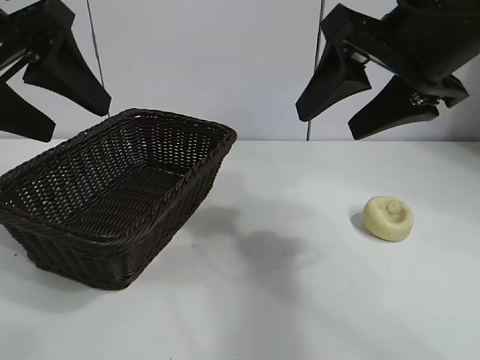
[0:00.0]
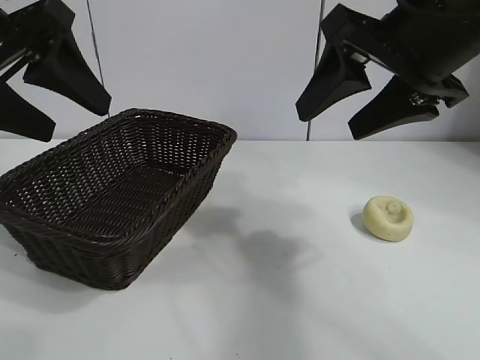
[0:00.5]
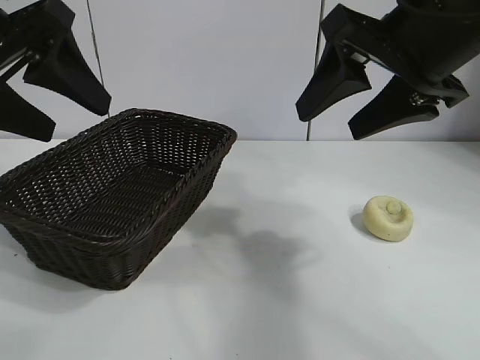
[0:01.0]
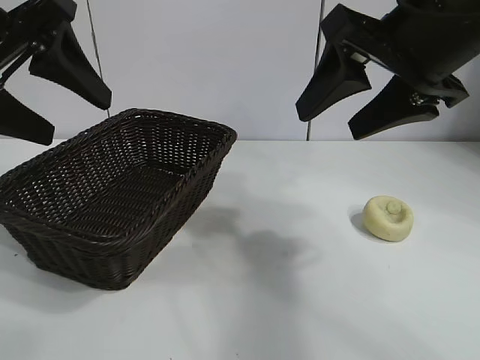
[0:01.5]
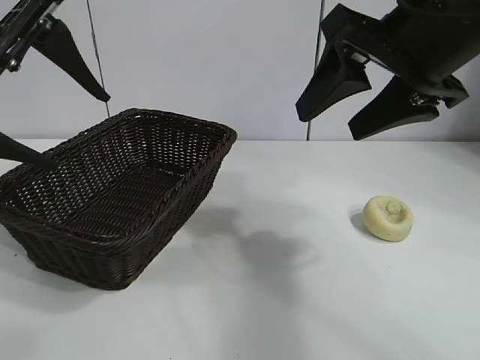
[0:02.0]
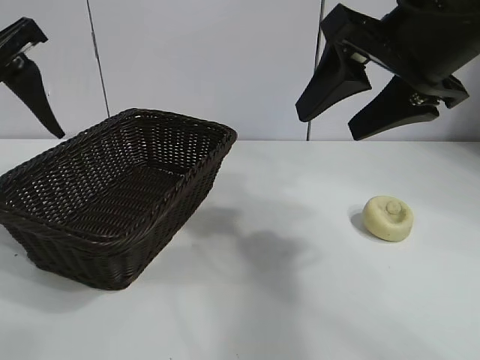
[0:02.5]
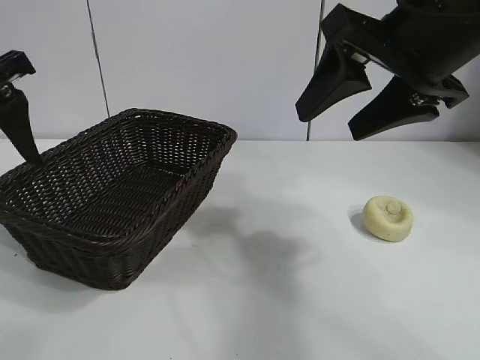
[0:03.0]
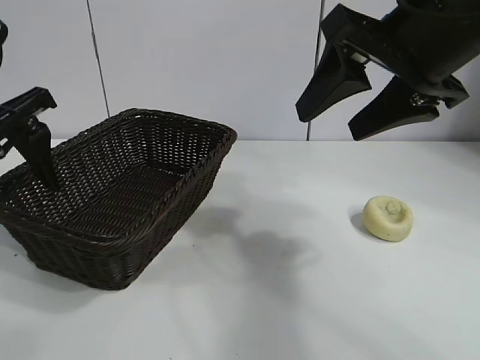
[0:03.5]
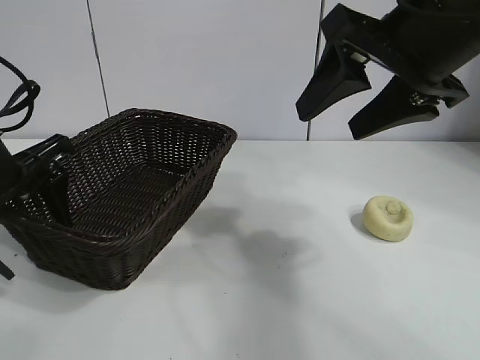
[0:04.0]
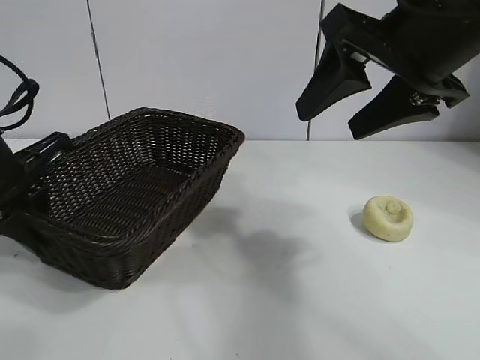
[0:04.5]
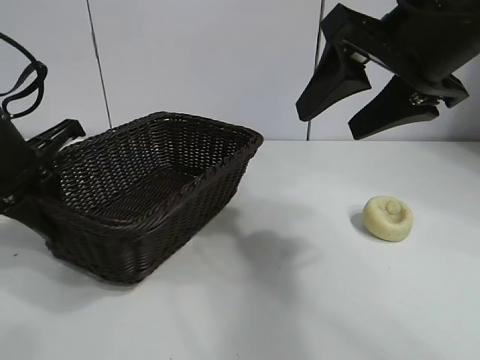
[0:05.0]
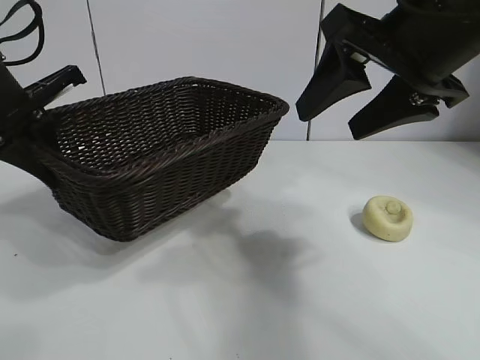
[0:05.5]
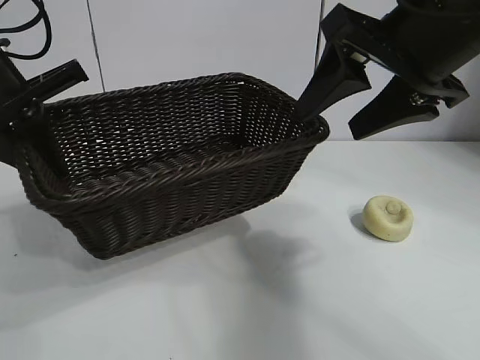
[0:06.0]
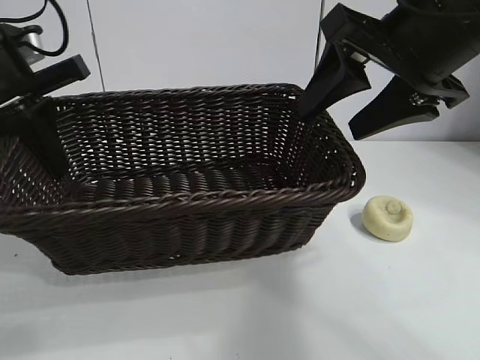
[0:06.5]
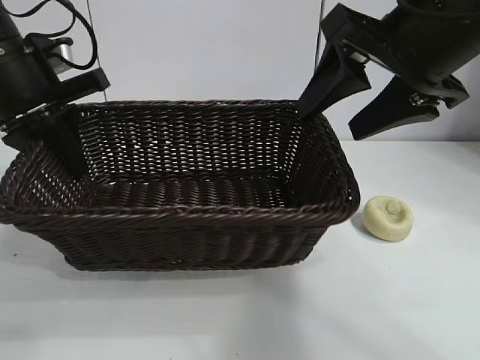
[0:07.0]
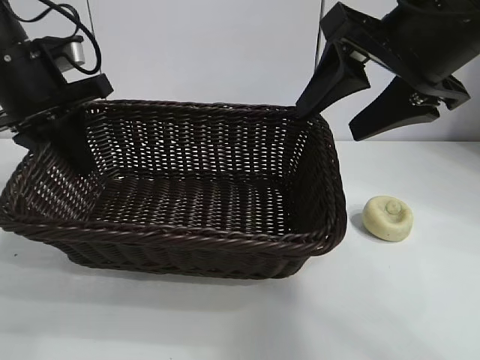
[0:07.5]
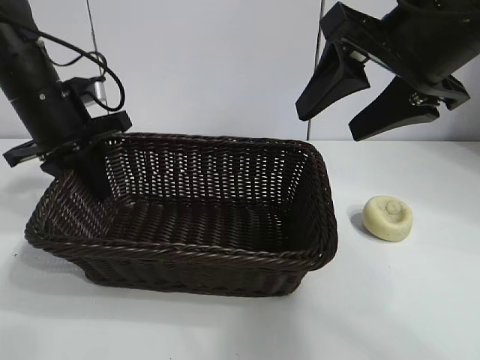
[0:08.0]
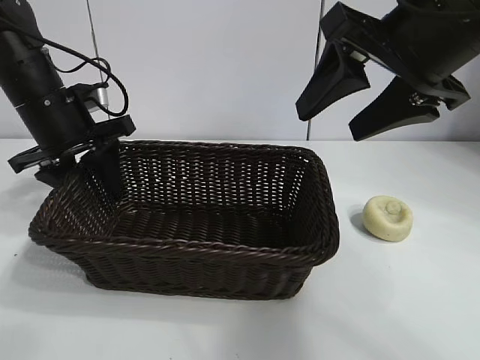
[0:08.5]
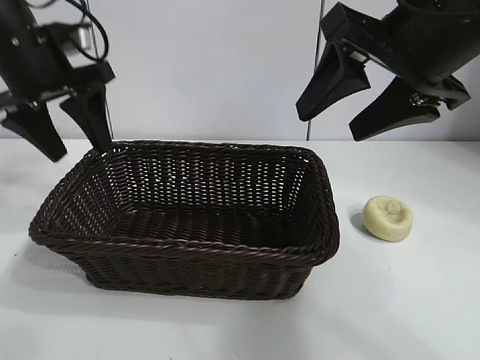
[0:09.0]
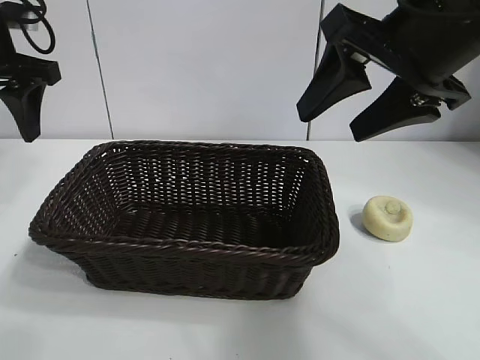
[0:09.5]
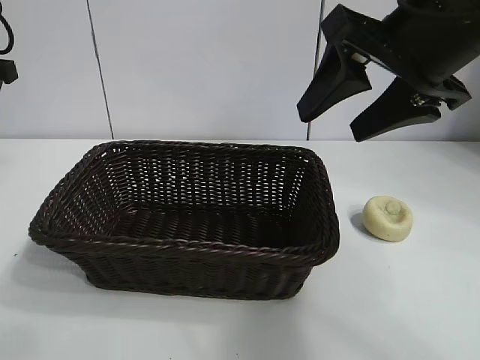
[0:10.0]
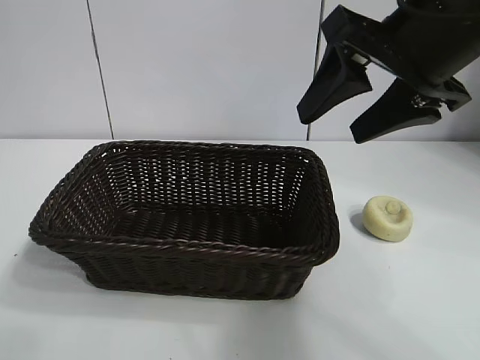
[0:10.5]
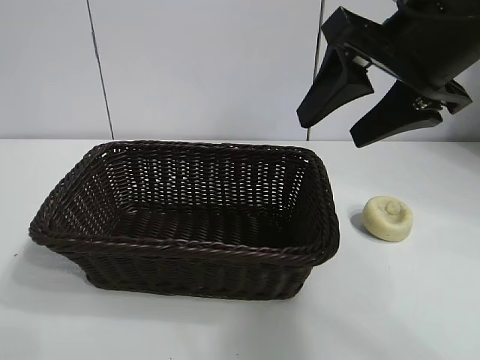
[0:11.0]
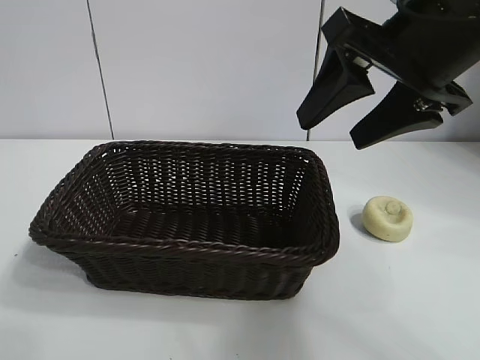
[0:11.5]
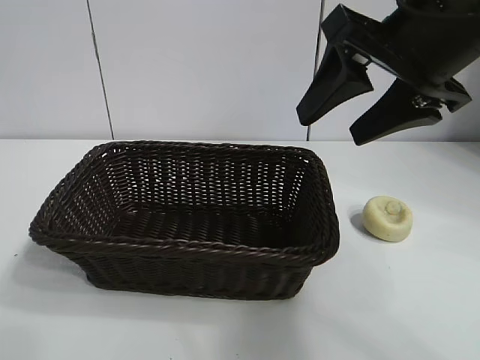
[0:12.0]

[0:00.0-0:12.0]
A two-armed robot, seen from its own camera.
Task of the whole recording: pick up the egg yolk pastry and put it into the basket.
Step, 0:01.5 to 0:04.0: Grasp the basket with left gripper.
Step, 0:05.0 to 0:09.0: Place the basket in the center of view with left gripper.

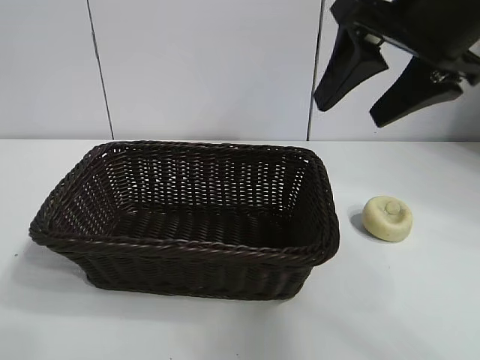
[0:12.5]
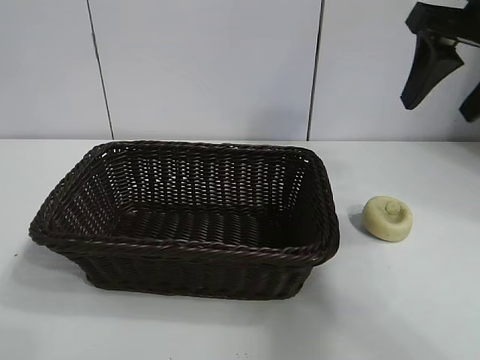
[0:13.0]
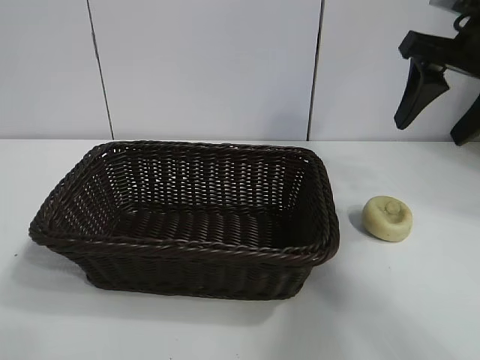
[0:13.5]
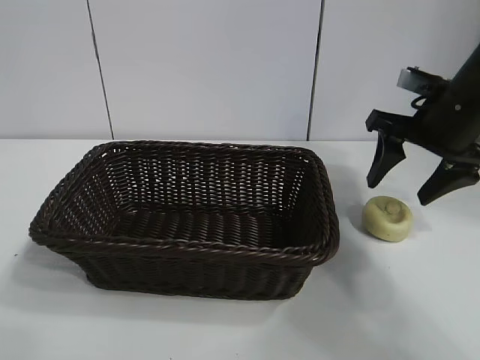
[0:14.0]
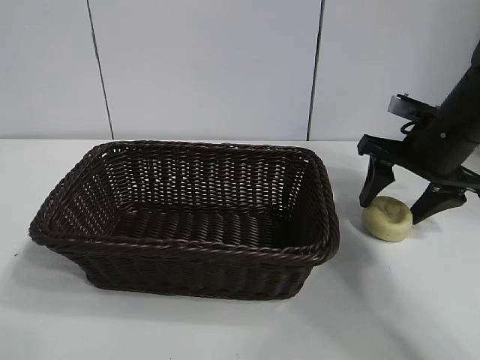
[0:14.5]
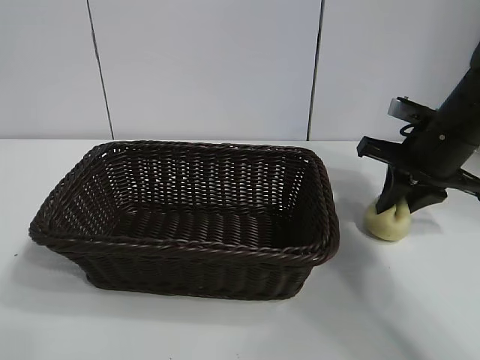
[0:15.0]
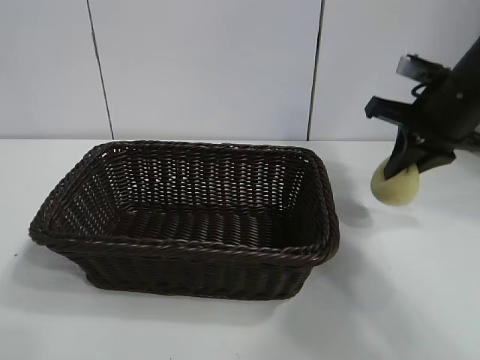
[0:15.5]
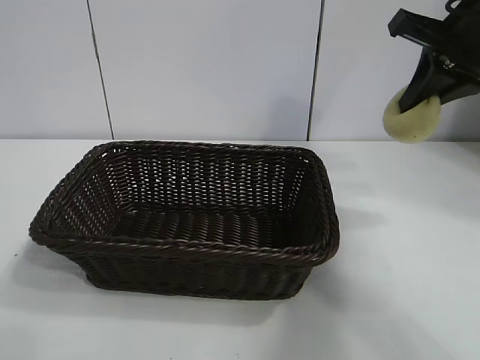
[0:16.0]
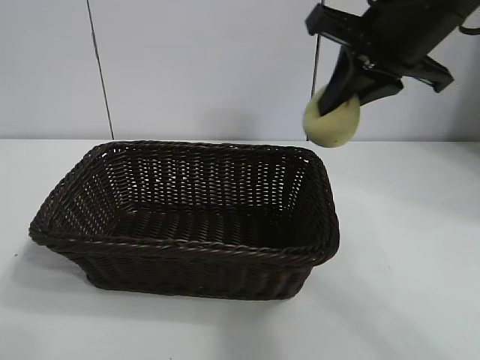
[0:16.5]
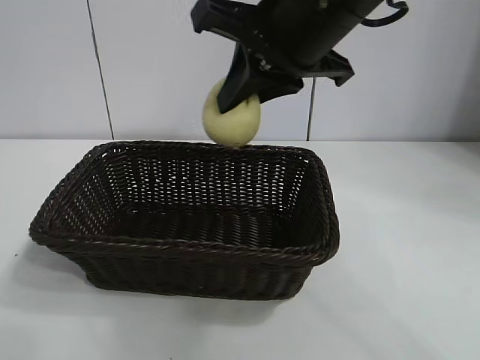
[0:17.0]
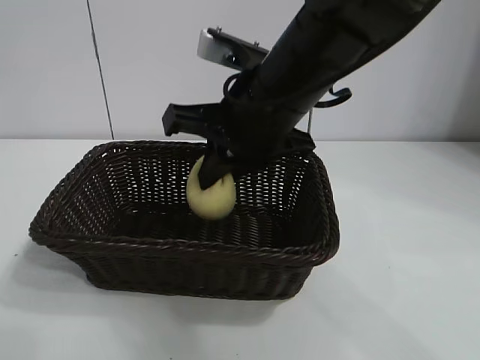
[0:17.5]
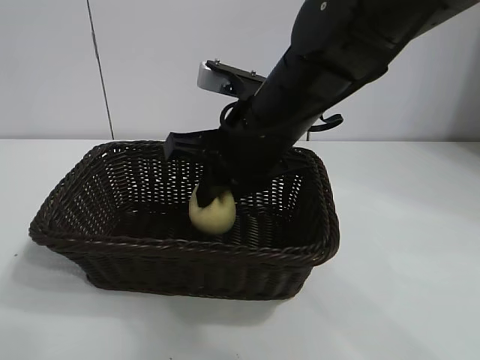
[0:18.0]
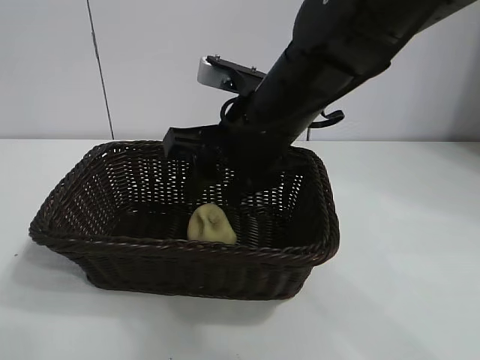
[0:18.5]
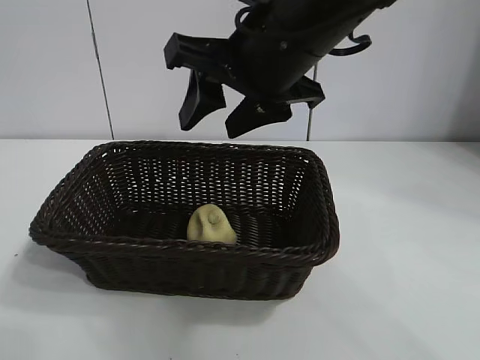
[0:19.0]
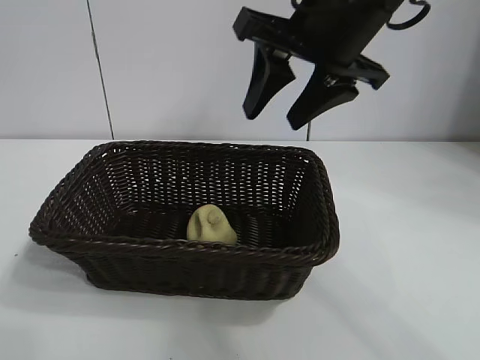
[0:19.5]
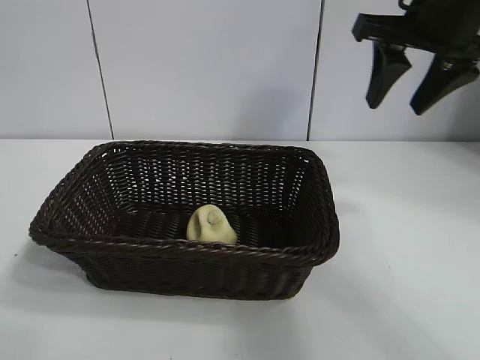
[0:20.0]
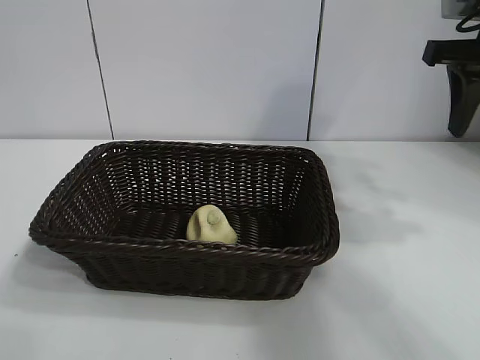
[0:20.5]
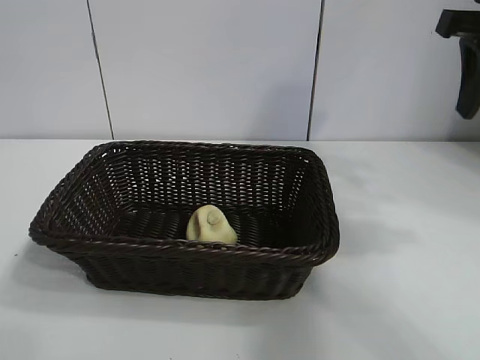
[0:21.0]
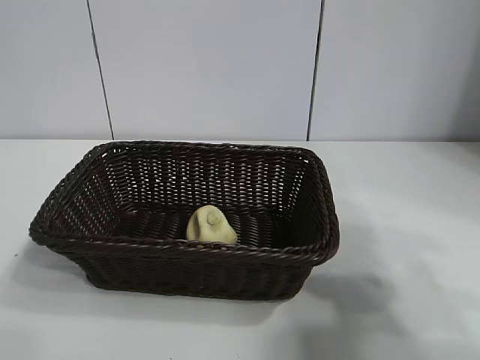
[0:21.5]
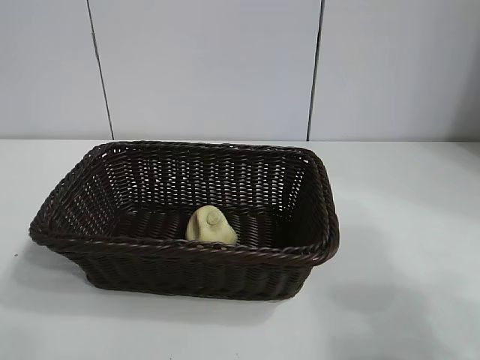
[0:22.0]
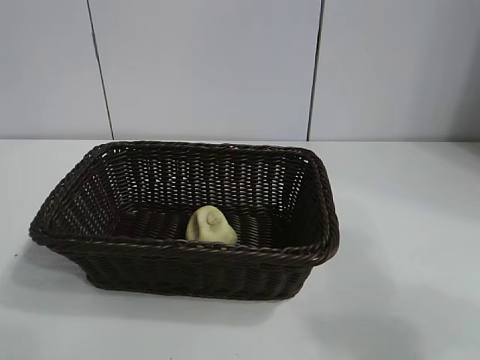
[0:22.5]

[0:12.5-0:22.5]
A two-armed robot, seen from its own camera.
Task of the whole recording: pick up the egg yolk pastry and put it into the basket.
Step, 0:12.5 to 0:14.5: Grasp egg yolk pastry with right gripper.
Step, 0:15.5 to 0:18.0: Place the egg yolk pastry in the basket with right gripper.

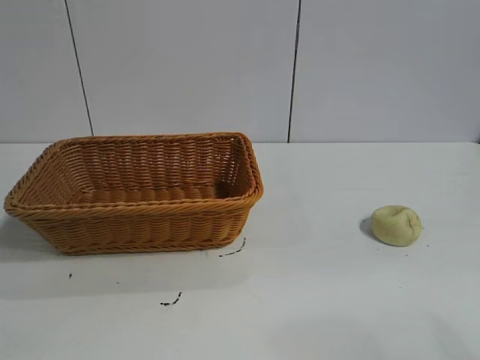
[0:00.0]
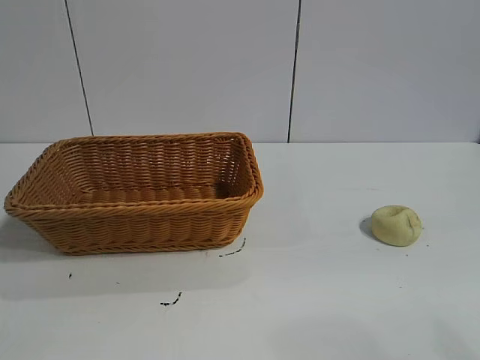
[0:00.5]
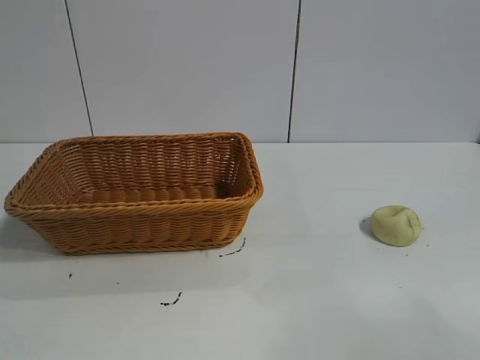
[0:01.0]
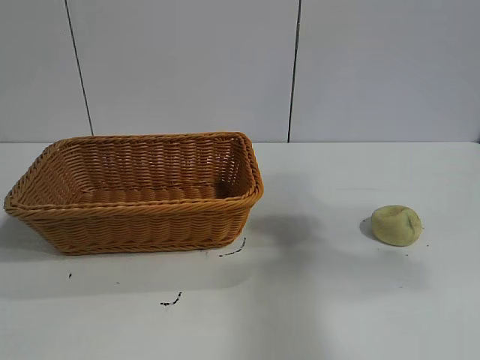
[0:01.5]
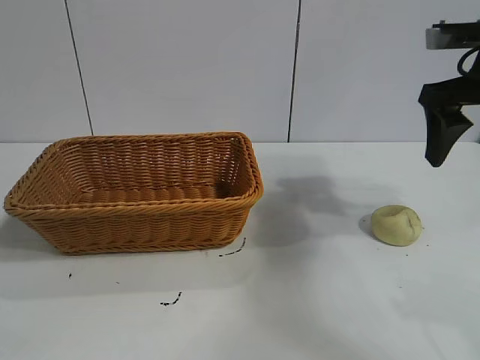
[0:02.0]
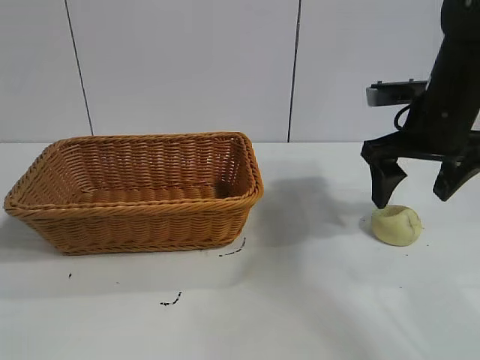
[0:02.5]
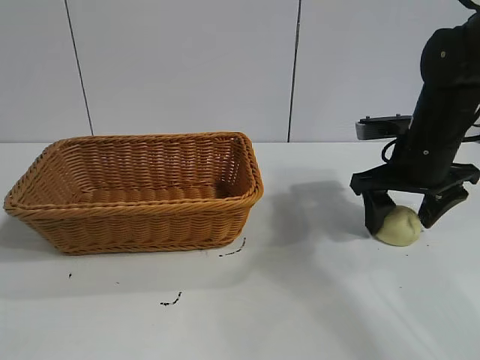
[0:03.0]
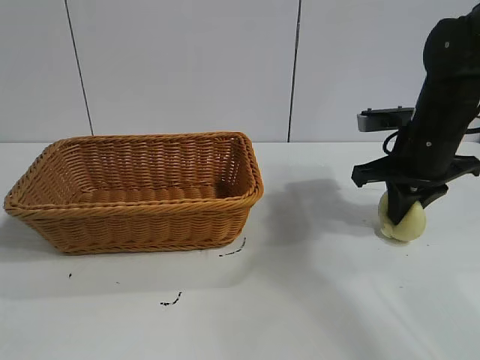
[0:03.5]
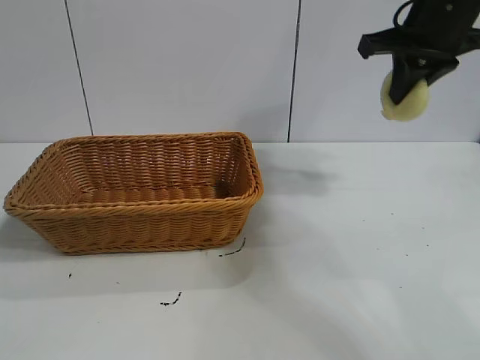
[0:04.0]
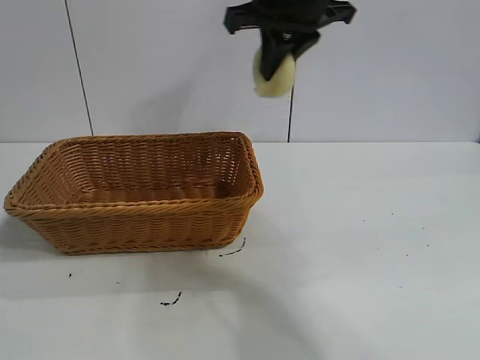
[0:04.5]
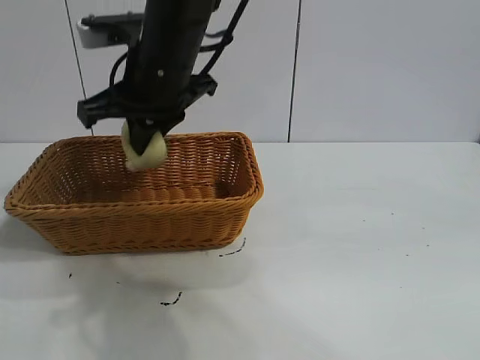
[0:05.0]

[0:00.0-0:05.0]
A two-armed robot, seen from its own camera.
Task of the whole recording: pick up the egg yolk pastry and put it into the basket.
Step, 0:01.0 to 0:03.0: Grasp egg yolk pastry with right gripper.
